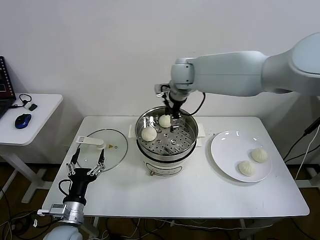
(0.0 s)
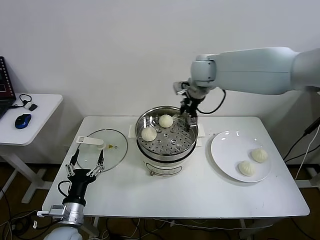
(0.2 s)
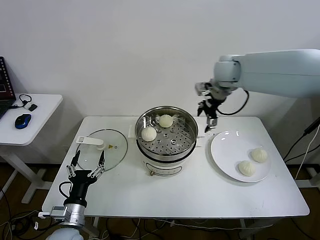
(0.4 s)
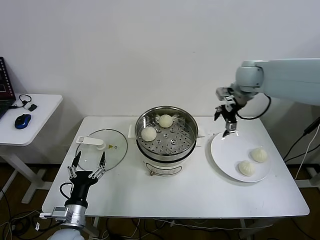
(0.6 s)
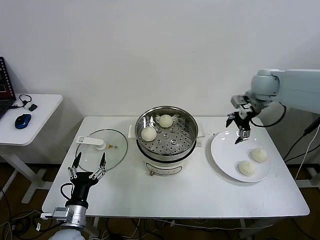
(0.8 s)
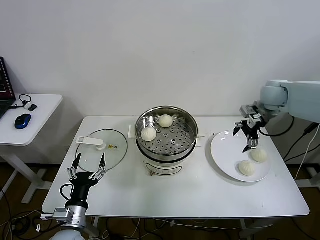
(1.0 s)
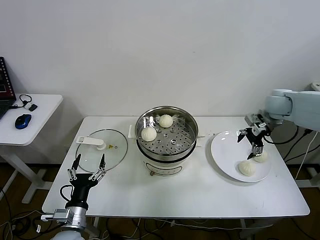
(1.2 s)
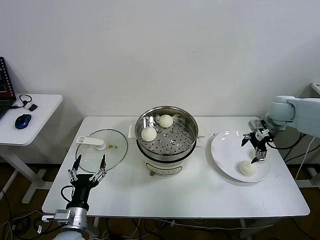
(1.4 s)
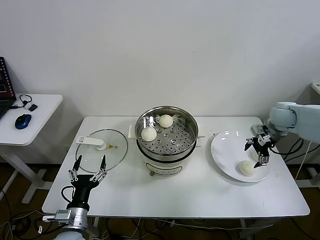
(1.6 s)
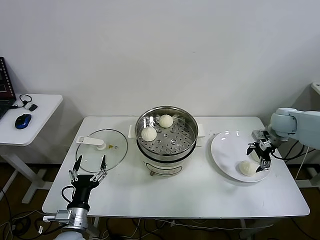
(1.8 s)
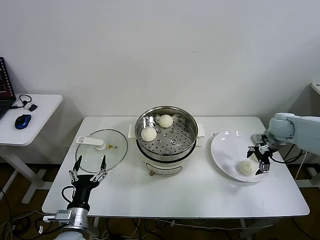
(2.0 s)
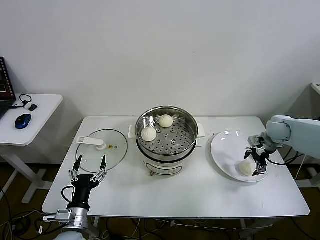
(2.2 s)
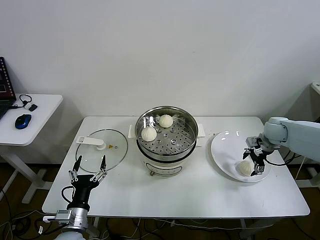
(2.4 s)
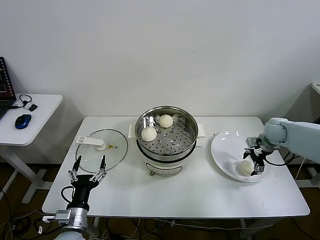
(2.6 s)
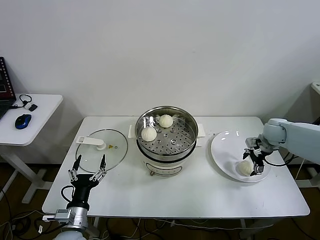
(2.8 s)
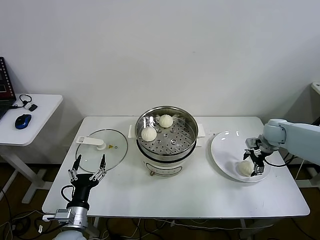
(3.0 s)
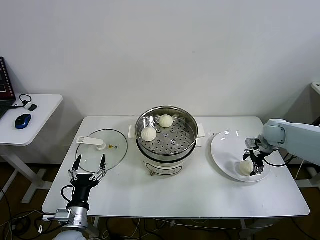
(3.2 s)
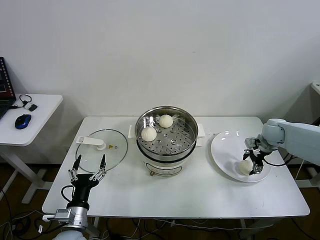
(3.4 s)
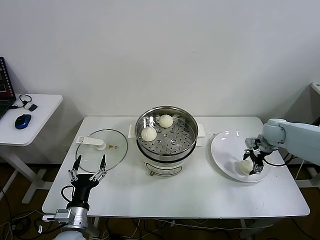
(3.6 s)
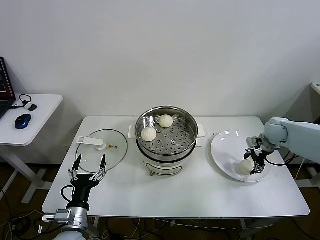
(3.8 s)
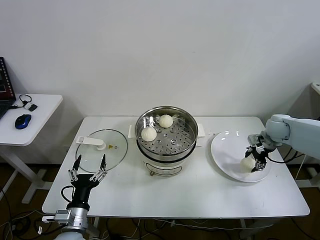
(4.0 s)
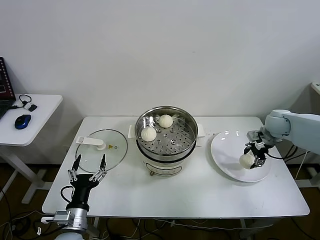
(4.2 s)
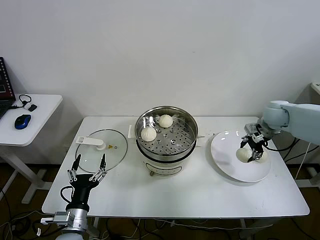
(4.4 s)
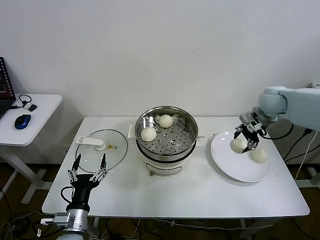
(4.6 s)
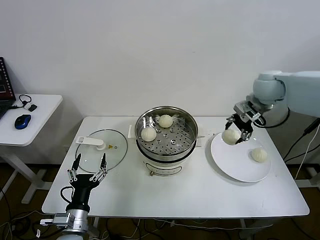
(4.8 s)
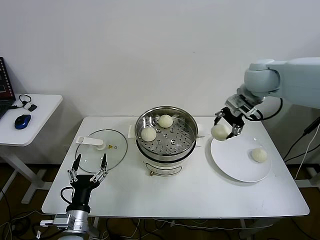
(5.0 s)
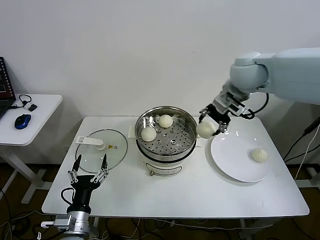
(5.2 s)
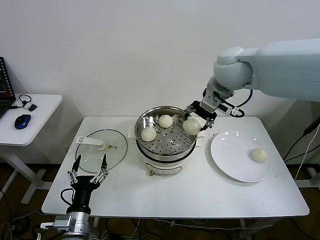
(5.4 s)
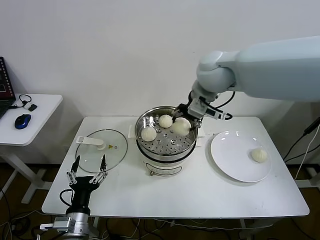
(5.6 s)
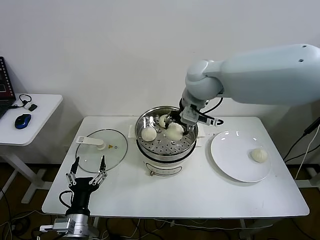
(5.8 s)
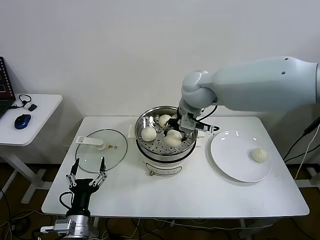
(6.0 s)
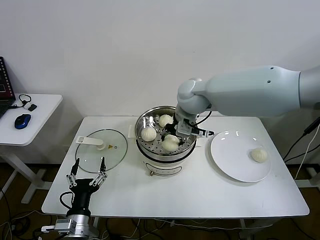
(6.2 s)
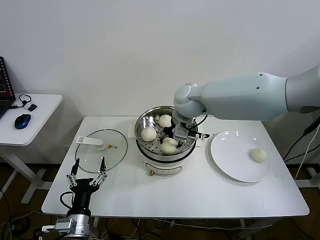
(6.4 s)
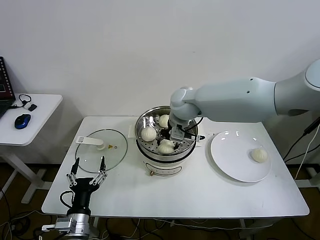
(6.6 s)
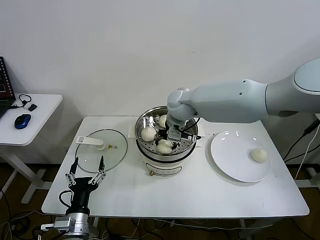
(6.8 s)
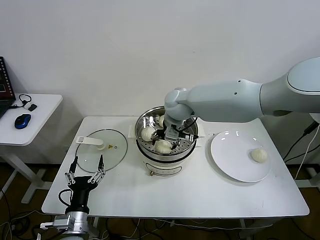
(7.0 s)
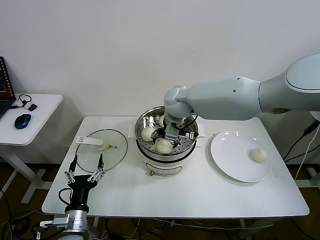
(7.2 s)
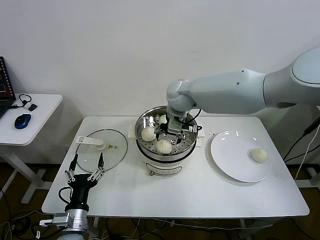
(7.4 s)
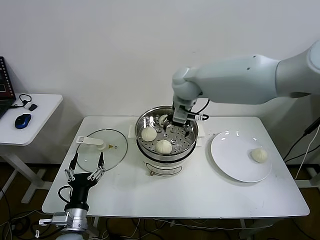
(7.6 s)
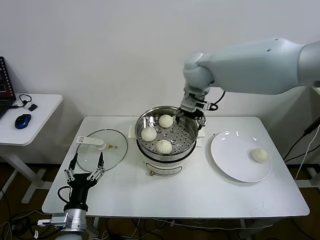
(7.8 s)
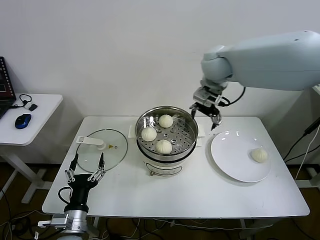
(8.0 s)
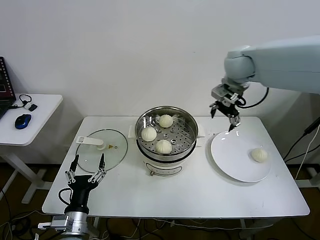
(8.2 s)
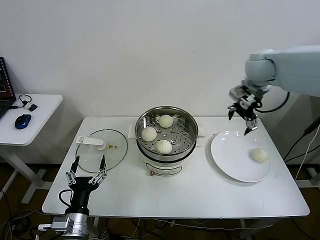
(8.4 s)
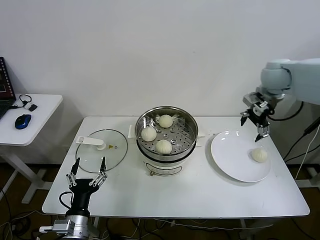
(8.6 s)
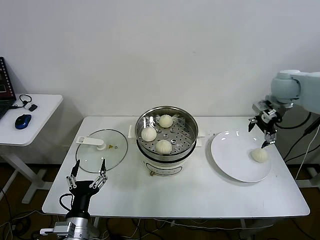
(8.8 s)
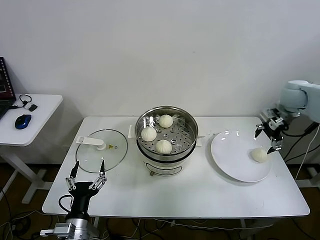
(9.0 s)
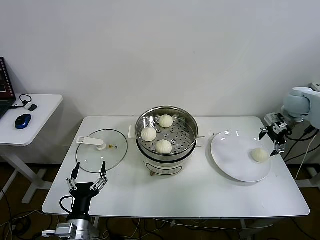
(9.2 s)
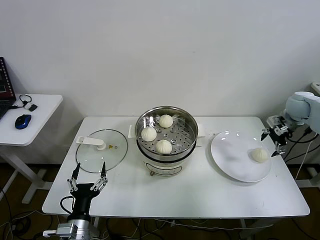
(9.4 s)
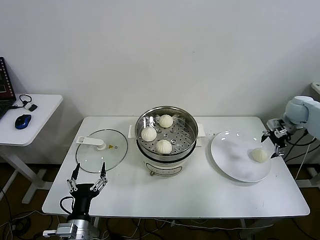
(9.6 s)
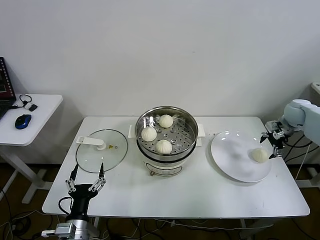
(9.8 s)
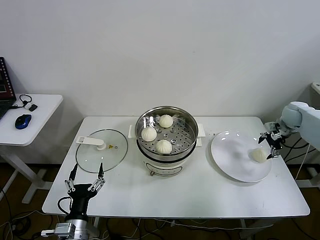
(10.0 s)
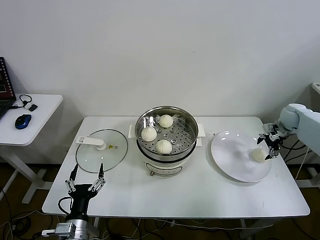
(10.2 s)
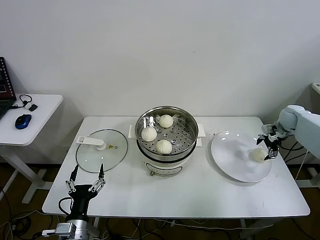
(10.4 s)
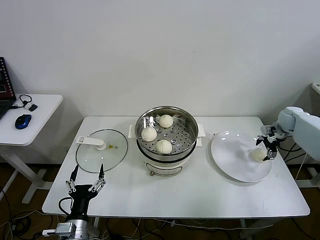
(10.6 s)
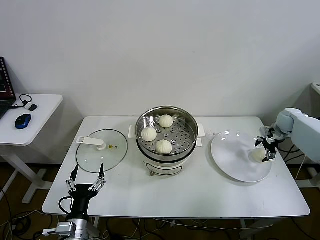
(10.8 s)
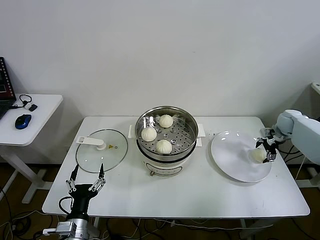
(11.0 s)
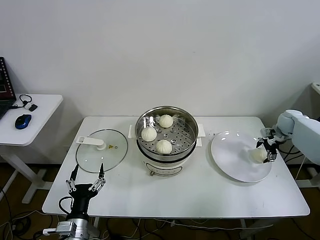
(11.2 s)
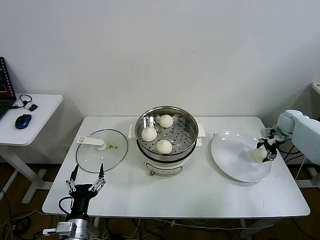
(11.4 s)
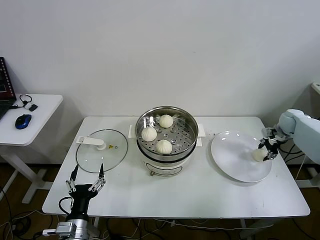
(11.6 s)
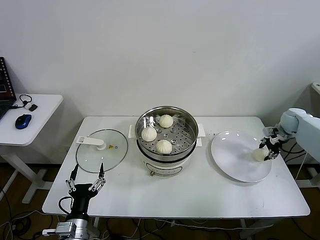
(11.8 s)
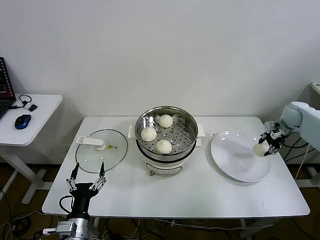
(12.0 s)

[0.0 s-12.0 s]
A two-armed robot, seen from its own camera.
Step, 0.0 to 3.6 s: Grasp the baozi in the plate with right gripper.
Step, 3.8 to 7.4 s: Place the baozi on the steamer with right gripper.
Step, 7.6 to 11.6 s: Grasp the baozi in the plate with right gripper.
0.0 to 1.6 s: The right gripper is displaced to the right by approximately 35 cm.
1.6 to 3.0 s: The right gripper moves downward, some 10 cm.
3.0 to 4.4 s: The right gripper shifts roughly 10 cm upward, and closes.
4.4 to 6.0 s: The right gripper travels to the left and upward by about 35 cm.
6.0 to 7.6 s: The right gripper shifts roughly 5 cm forward, travels downward and back again, approximately 10 cm each way, and opens its fingers.
7.6 to 9.0 s: The right gripper travels to the right by roughly 35 cm.
9.0 to 10.4 s: The right gripper shifts some 15 cm downward and to the right.
10.4 to 12.0 s: The right gripper closes its fingers.

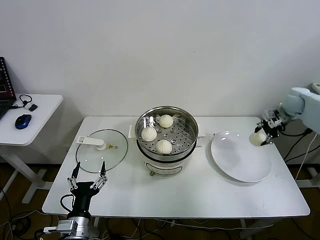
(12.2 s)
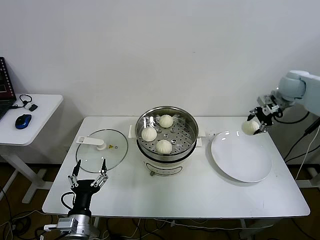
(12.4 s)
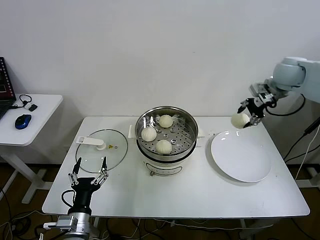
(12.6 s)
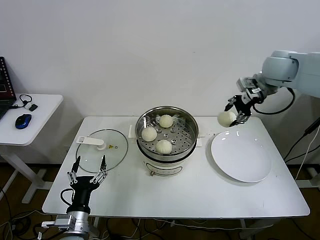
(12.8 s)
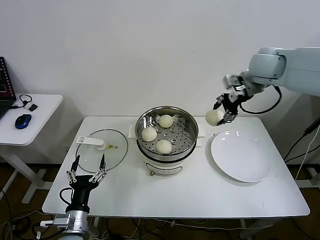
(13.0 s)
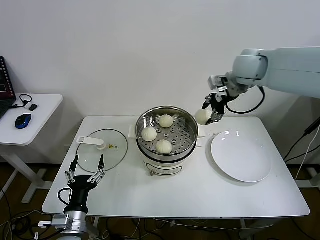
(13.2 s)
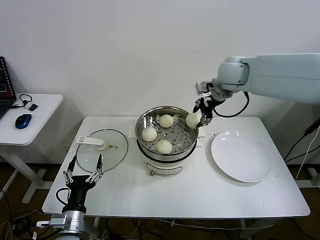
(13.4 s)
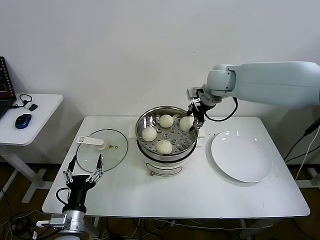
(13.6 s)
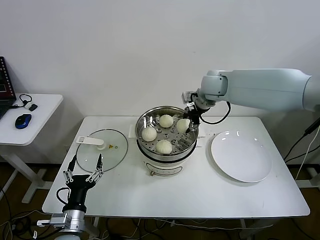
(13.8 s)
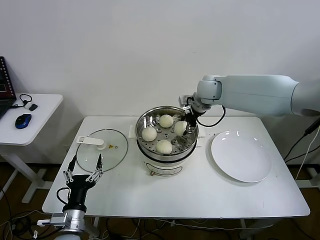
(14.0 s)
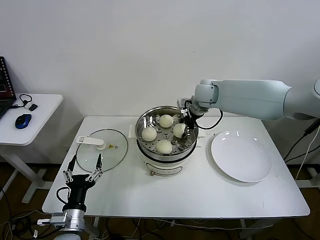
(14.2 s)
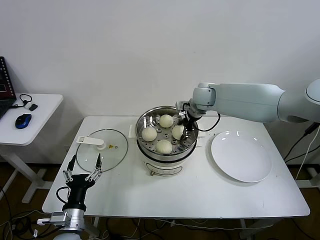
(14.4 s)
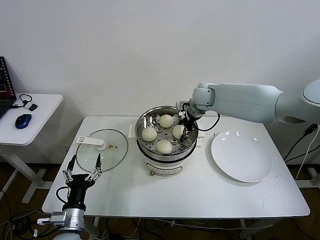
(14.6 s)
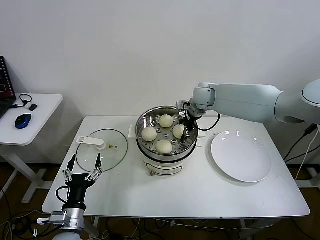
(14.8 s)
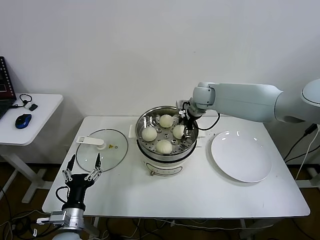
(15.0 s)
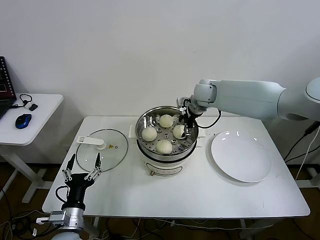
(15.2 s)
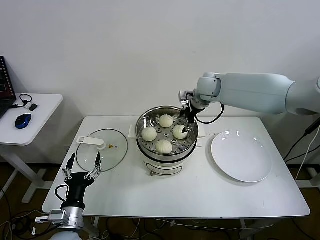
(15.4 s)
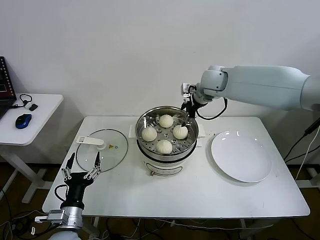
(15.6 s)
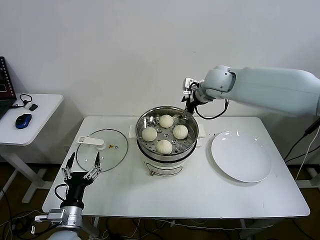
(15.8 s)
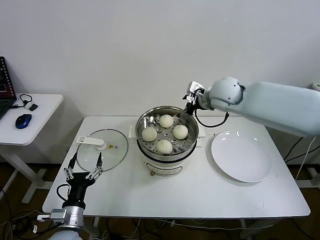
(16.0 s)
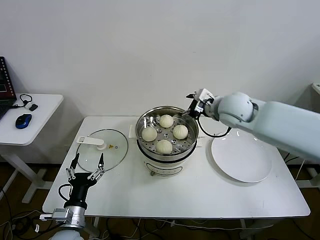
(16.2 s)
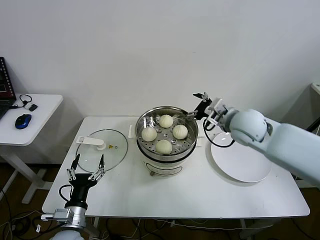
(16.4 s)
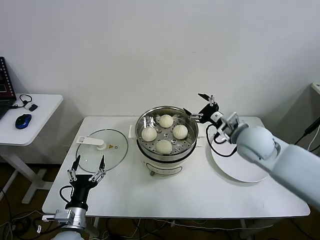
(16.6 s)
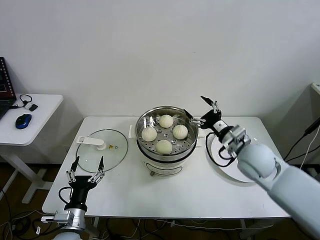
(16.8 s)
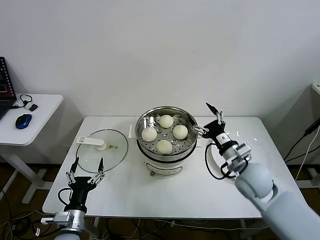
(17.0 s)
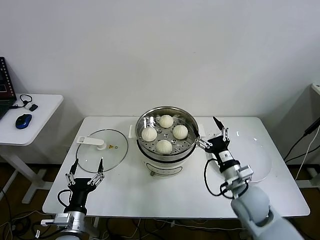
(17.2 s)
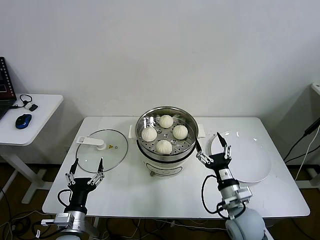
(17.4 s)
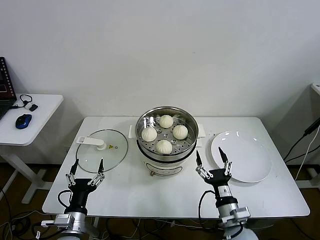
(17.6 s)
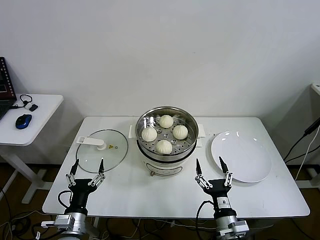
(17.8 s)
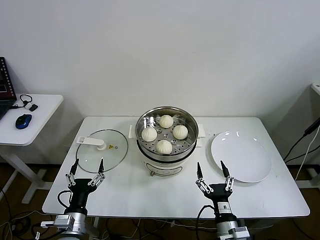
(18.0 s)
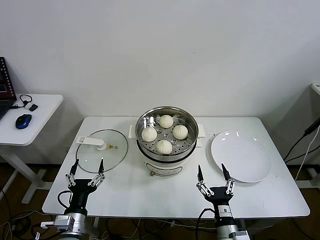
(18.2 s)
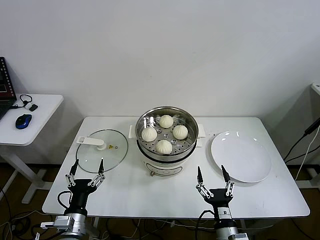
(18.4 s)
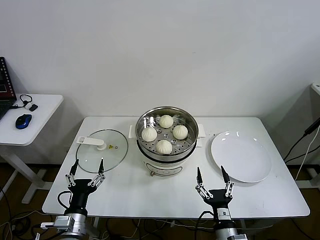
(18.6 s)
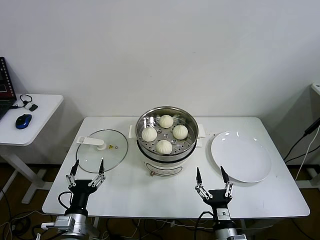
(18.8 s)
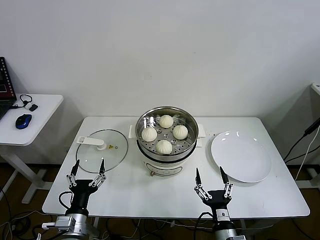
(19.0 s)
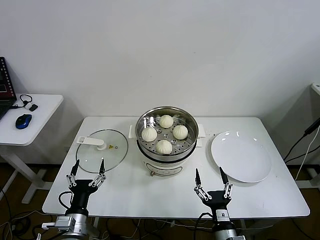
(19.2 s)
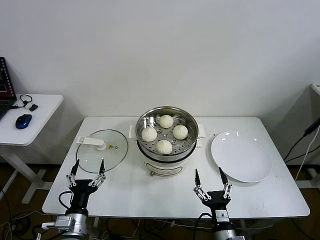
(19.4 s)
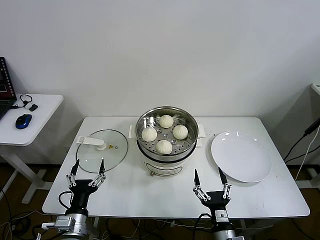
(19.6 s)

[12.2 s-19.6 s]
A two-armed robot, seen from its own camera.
Step, 12.2 to 15.4 s: Place the baozi on the steamer with right gripper.
12.2 to 13.6 s: The right gripper shifts roughly 30 cm to the left.
13.6 to 15.2 s: The right gripper shifts approximately 10 cm downward, and opens.
15.2 to 16.6 s: The right gripper moves backward and to the right, some 20 cm.
16.6 to 18.2 s: The right gripper shifts some 35 cm backward and downward.
18.2 to 19.6 s: There are only small adjustments of the grippers.
